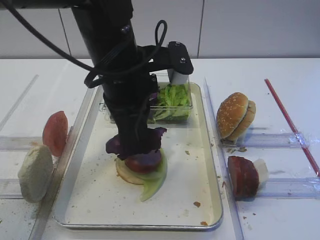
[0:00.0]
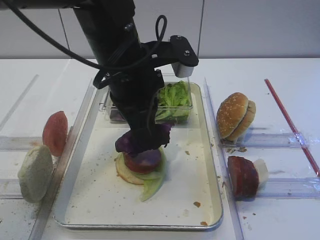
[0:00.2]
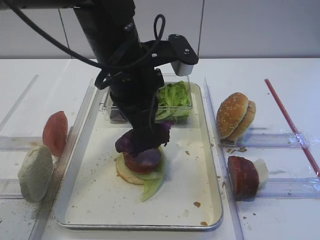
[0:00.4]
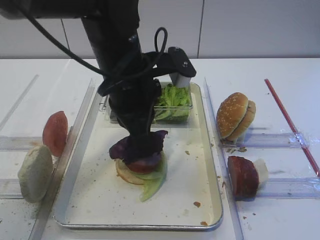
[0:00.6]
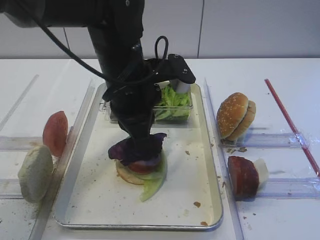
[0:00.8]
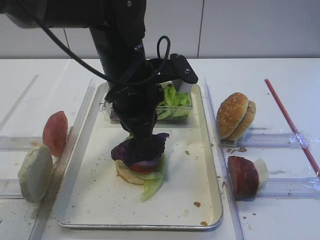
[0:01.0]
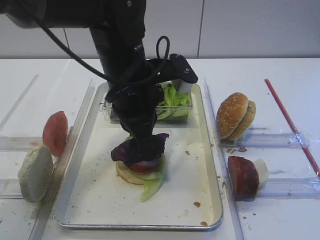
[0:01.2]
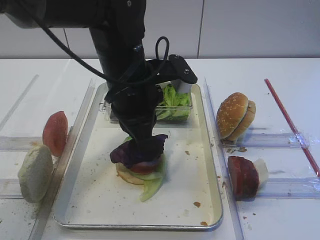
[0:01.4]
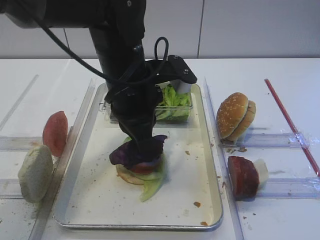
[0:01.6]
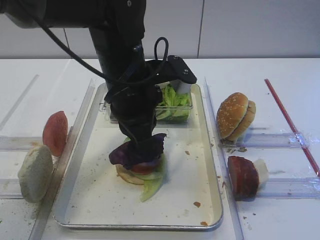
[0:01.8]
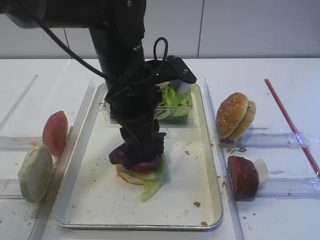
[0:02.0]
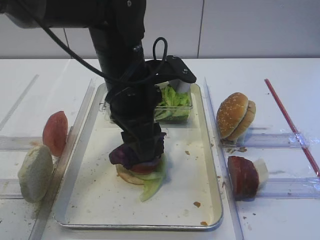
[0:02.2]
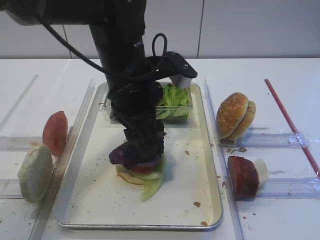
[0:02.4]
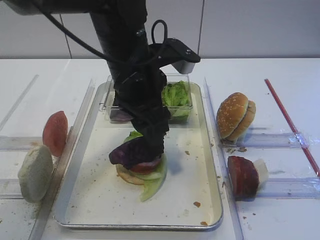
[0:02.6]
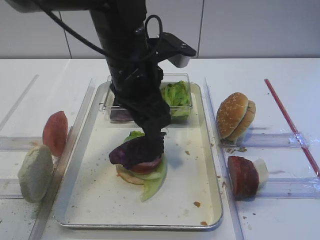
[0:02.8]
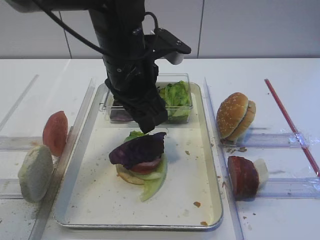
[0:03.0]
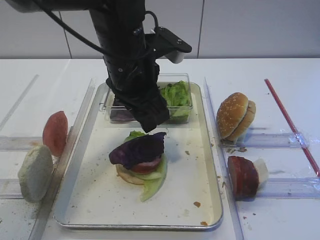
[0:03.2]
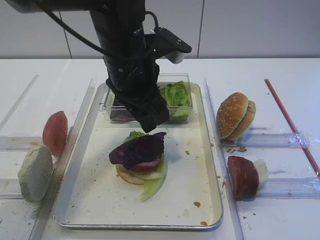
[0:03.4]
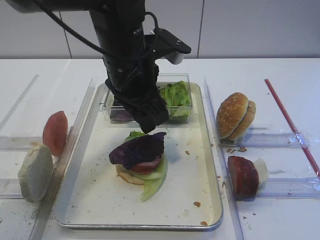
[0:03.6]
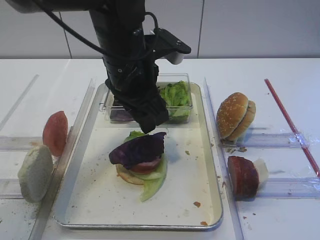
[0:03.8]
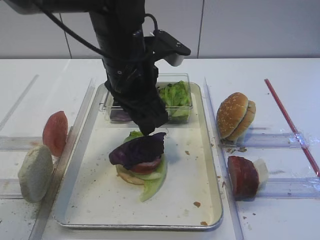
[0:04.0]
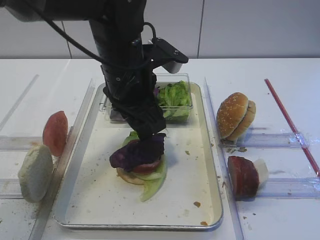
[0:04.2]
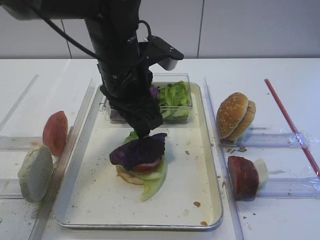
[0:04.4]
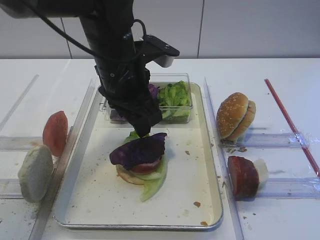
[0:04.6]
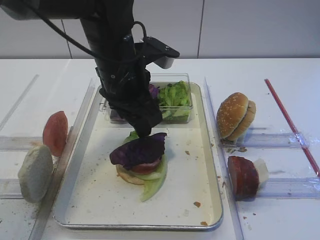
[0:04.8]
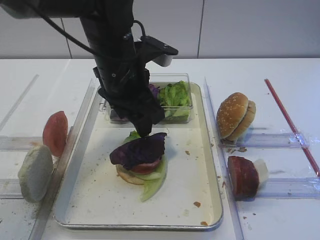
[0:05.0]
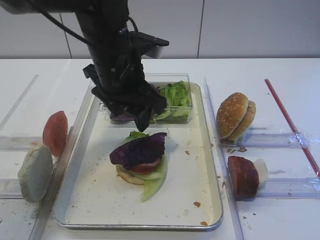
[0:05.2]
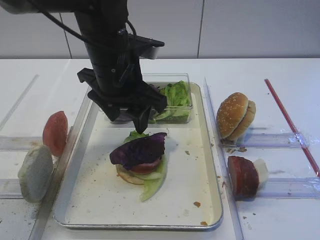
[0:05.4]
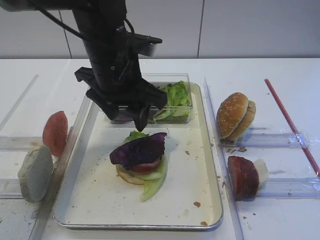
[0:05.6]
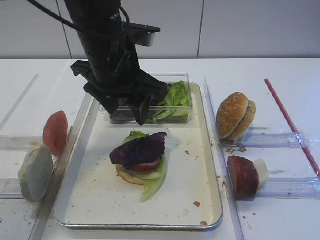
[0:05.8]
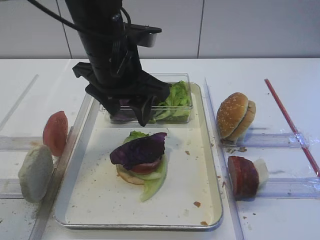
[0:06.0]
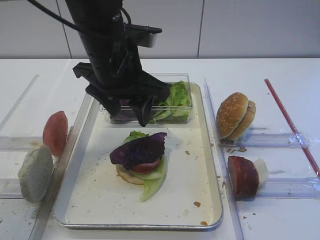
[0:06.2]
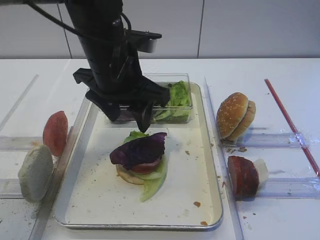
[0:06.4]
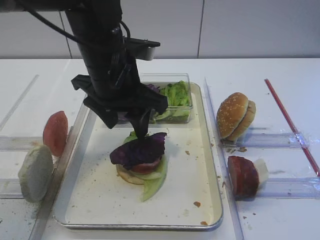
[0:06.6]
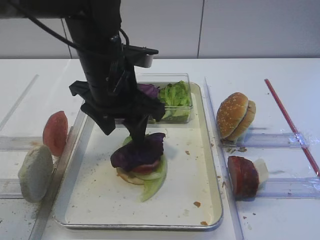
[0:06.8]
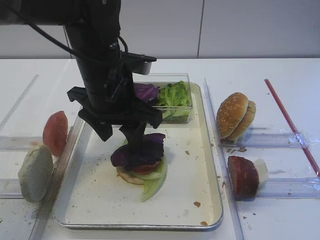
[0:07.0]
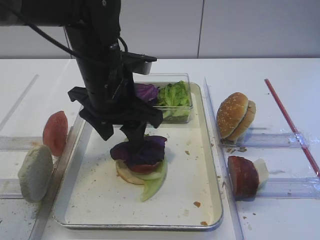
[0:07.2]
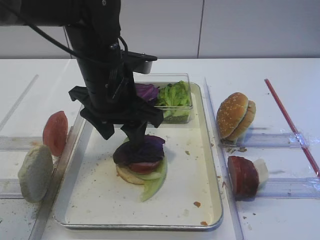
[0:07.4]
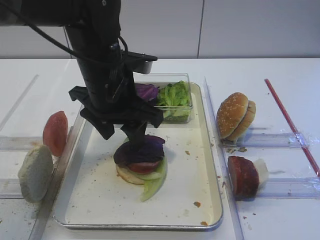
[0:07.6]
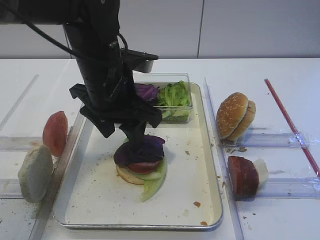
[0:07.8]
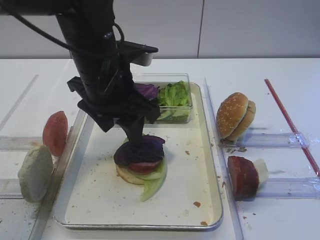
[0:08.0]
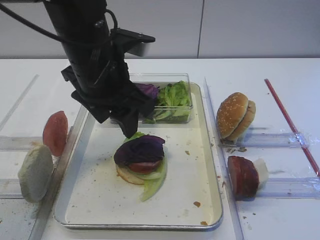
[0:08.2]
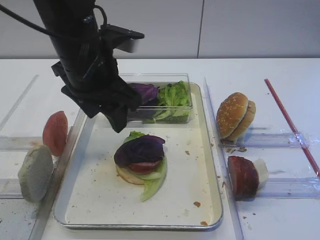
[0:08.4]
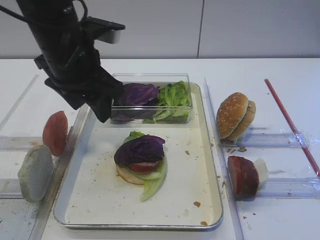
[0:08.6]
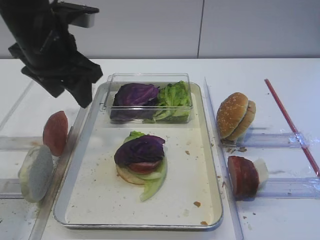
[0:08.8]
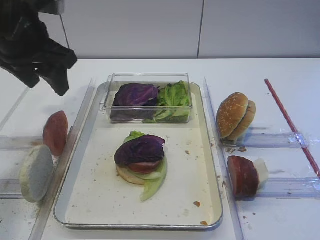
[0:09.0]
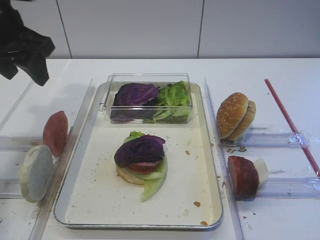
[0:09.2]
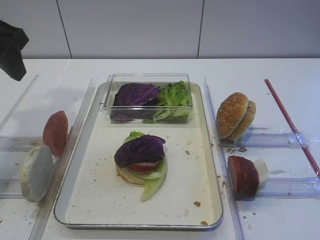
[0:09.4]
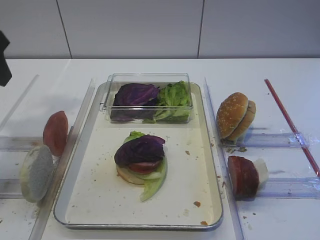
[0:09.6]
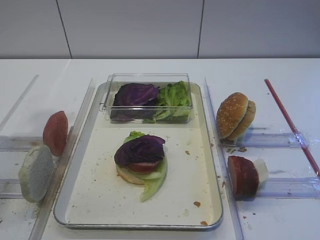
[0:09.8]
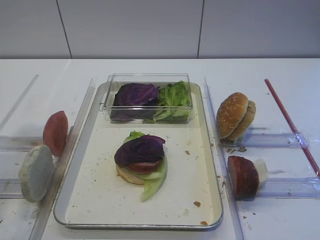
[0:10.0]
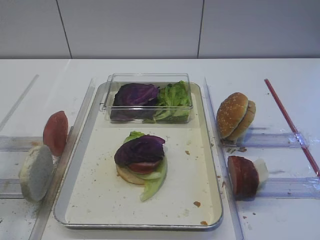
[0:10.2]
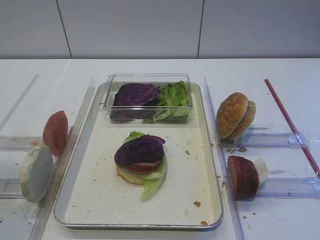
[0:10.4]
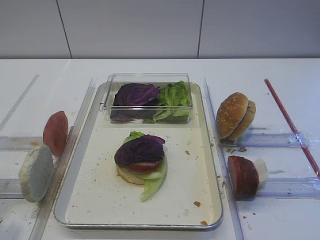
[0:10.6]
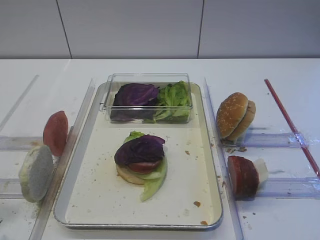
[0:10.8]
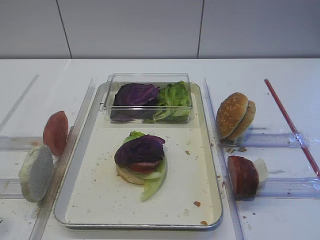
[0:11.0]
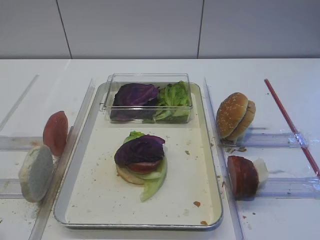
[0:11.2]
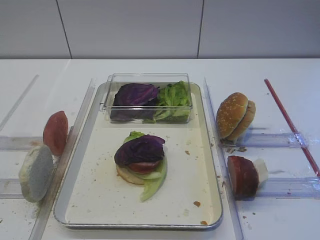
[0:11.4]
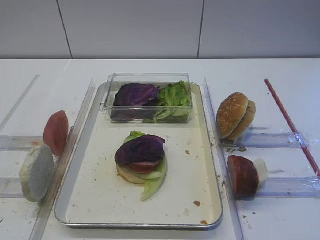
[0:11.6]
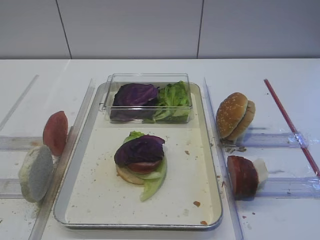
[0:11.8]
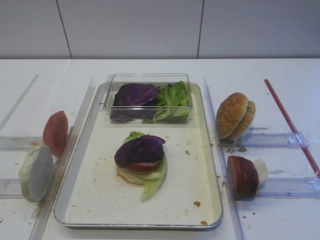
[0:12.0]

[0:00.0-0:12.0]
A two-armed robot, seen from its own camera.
Step, 0:00.0 to 0:06.2: Place the purple cabbage on the cutlet with the left gripper.
0:00.0 to 0:01.6: The grippers make only small movements.
0:01.6 to 0:03.0: The left gripper opens.
0:03.0 to 0:04.4: Both grippers stay put.
0:06.0 to 0:07.6: There are only small adjustments of the grippers.
0:07.6 to 0:09.0: The left gripper heads to the left and upward, covering roughly 15 cm.
0:09.0 to 0:10.4: The left gripper goes approximately 20 cm backward.
0:10.4 to 0:12.0: The left gripper is displaced backward and downward by roughly 15 cm.

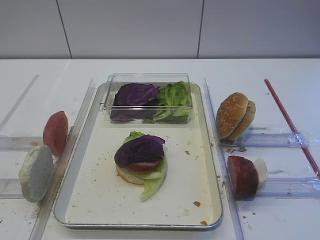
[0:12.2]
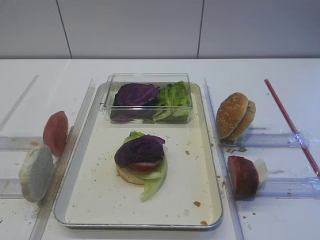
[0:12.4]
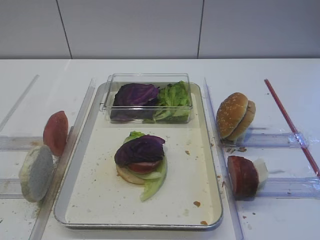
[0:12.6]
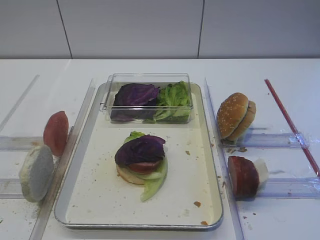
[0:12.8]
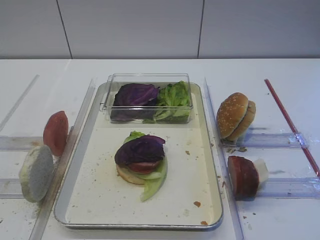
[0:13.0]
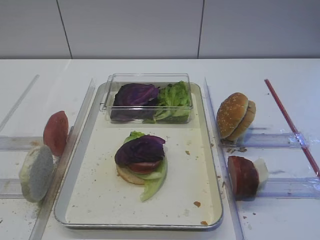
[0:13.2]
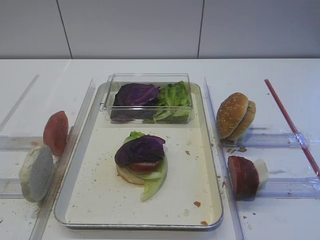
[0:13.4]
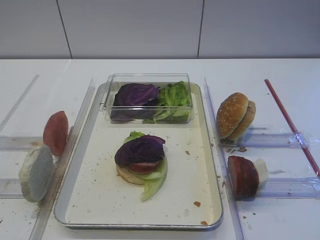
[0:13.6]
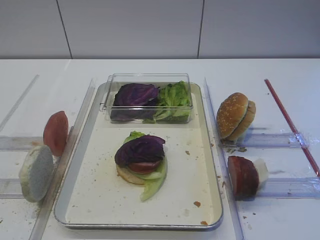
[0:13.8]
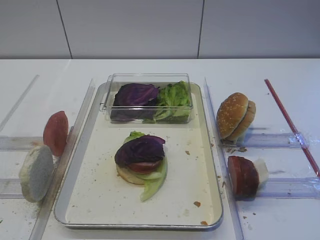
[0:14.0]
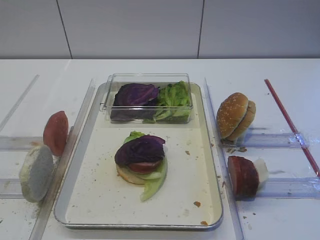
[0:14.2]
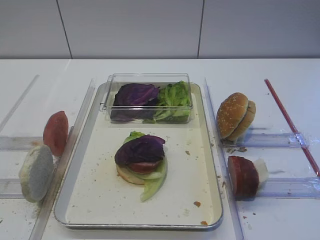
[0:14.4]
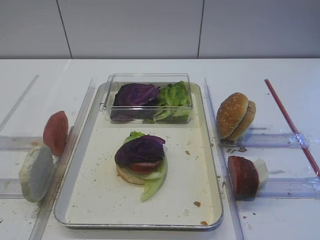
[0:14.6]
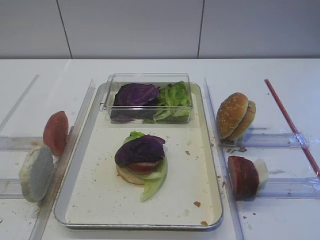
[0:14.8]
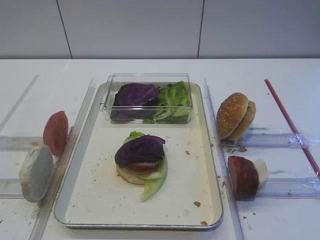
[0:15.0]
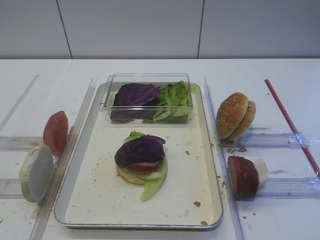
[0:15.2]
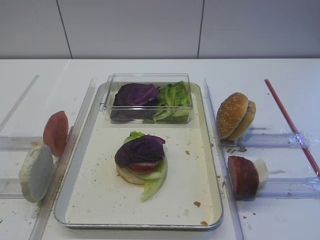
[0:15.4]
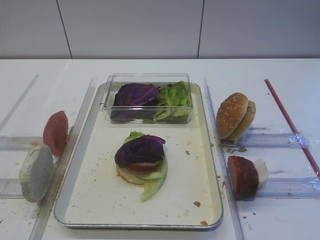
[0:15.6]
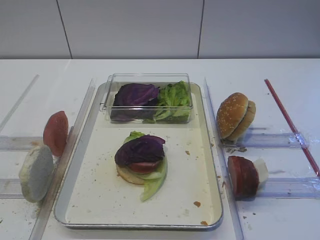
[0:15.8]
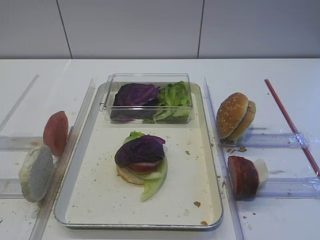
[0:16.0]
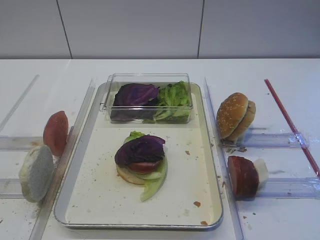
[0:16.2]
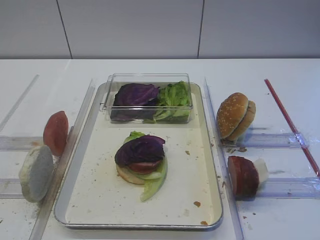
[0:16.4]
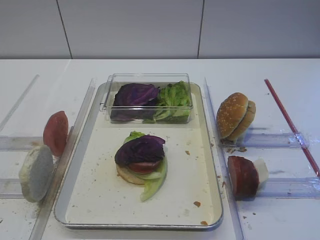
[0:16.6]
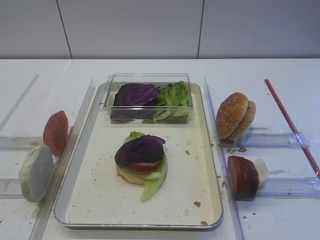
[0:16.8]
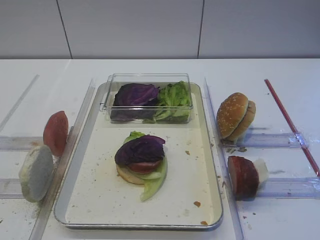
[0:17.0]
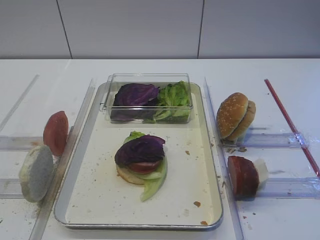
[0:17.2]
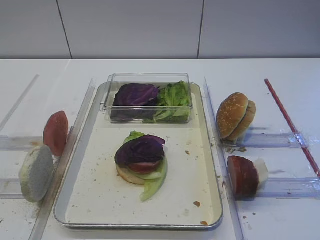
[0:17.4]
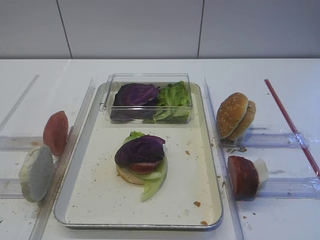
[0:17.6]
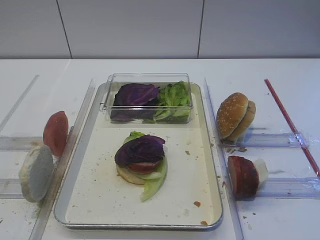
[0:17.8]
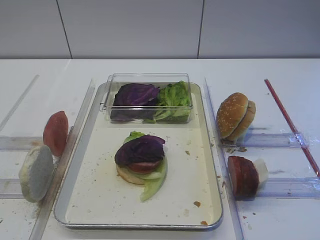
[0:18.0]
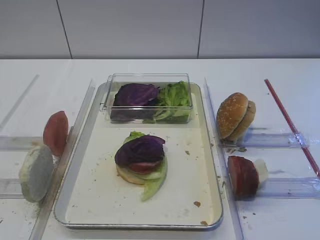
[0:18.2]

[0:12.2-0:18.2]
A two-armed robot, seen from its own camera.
0:12.2 to 0:18.2: The two grippers keep their place.

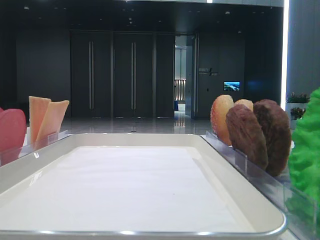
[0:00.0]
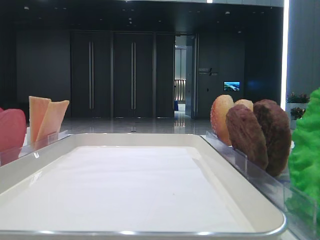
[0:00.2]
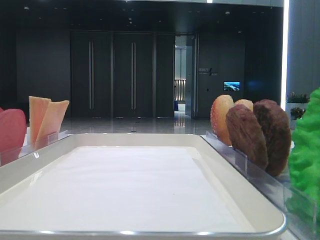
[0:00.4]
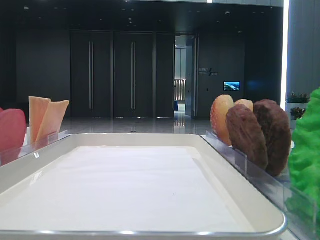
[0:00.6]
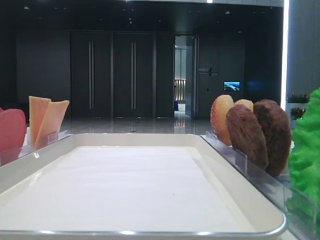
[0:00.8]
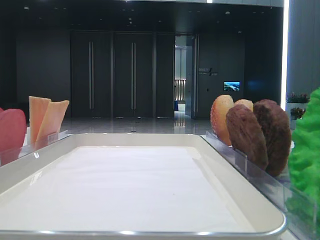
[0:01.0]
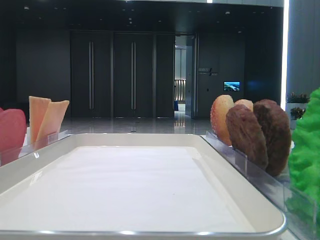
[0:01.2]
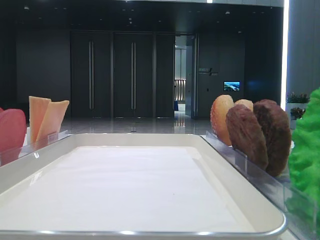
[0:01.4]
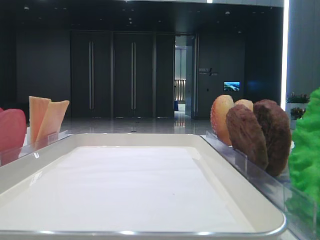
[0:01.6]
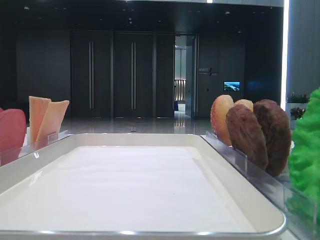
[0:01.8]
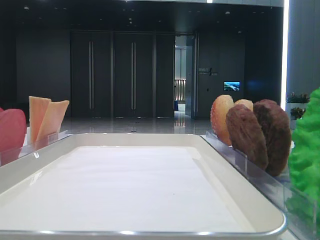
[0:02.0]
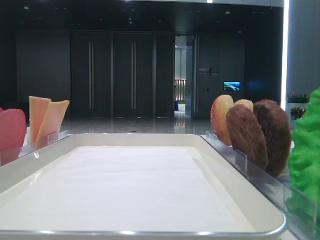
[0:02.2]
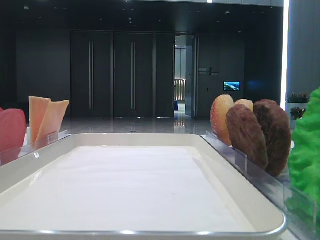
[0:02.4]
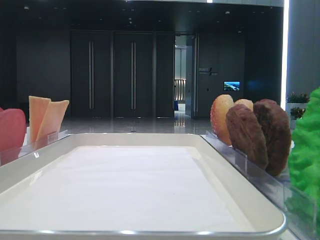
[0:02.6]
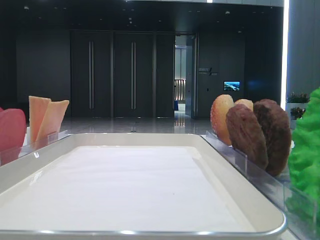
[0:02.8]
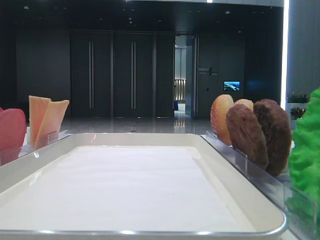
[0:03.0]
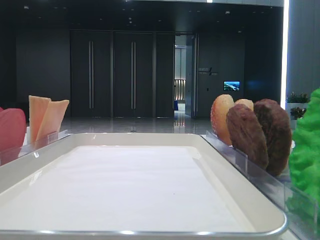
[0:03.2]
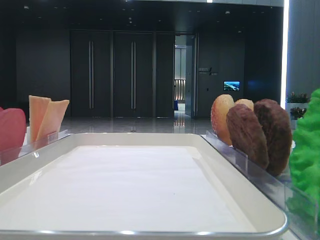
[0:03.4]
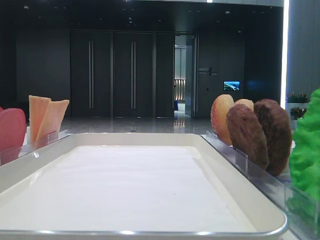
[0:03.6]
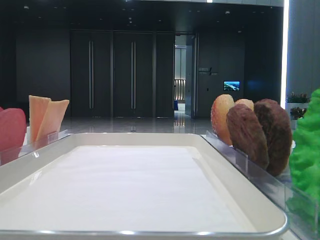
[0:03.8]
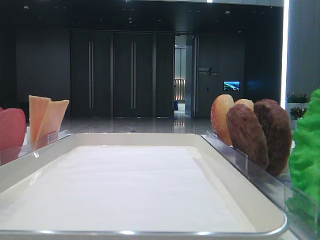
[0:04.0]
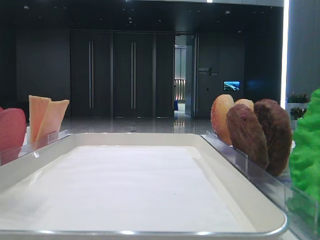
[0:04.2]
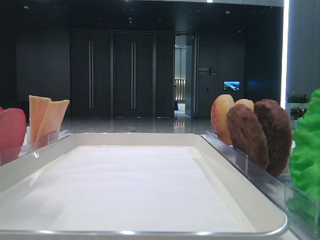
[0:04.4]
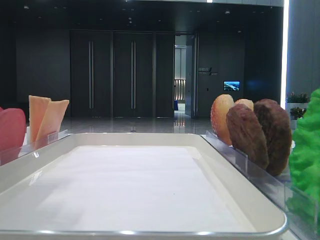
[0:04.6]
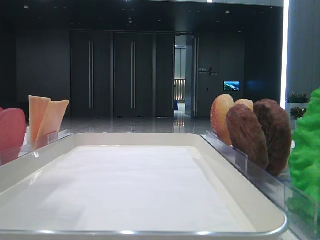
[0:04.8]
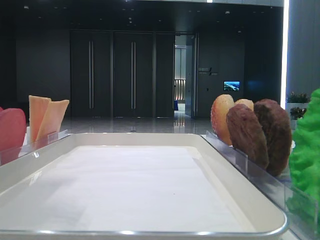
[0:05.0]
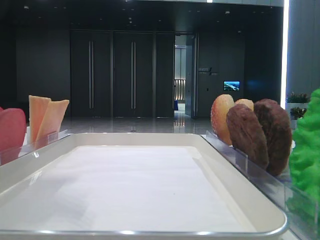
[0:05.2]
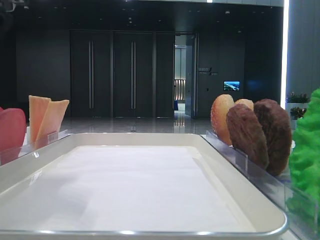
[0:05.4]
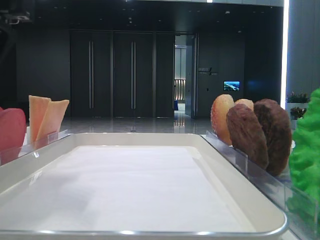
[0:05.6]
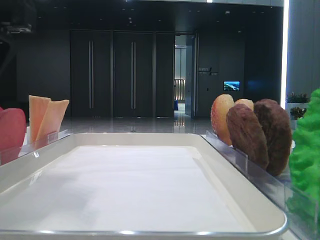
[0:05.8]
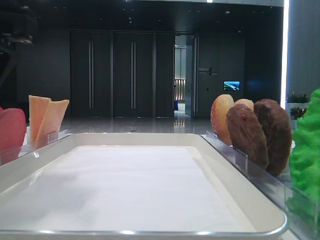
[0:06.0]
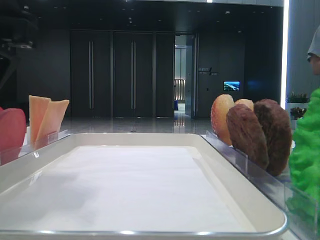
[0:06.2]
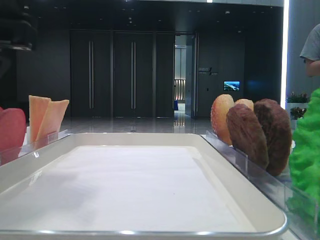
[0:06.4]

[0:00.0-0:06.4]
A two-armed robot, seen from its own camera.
0:03.2 to 0:04.8: The left gripper heads to the right, covering some 10 cm.
0:04.8 to 0:06.4: The left gripper is displaced downward by about 5 cm, and closes.
